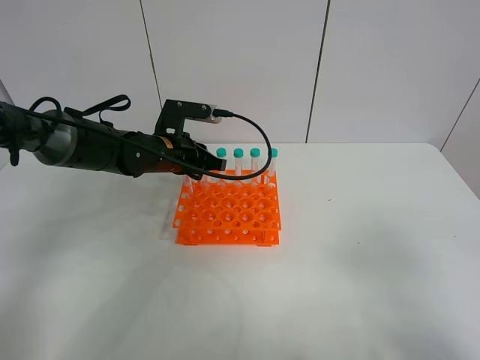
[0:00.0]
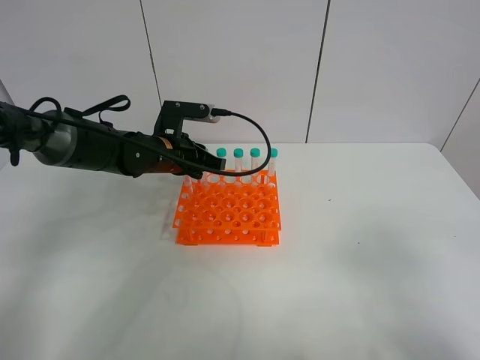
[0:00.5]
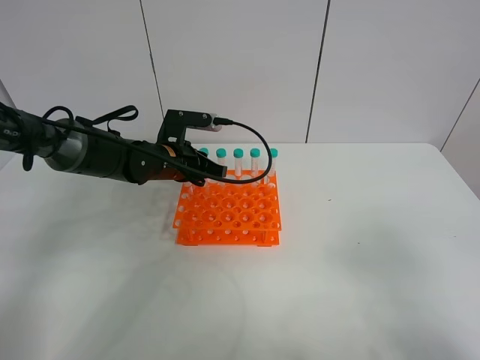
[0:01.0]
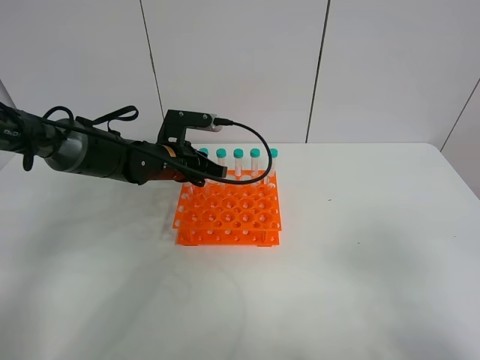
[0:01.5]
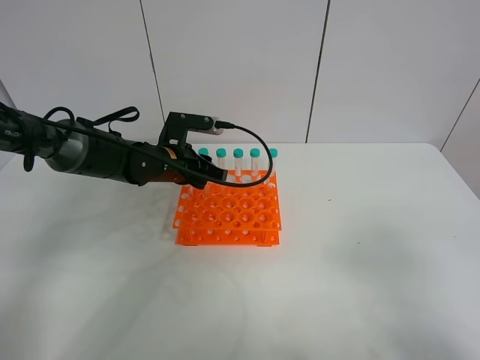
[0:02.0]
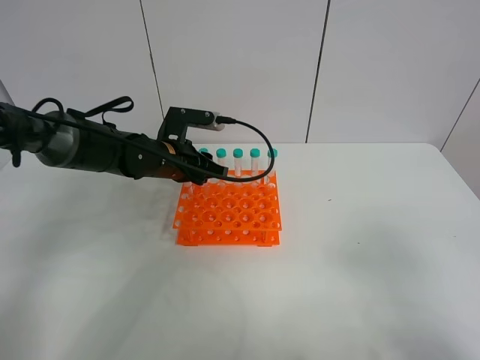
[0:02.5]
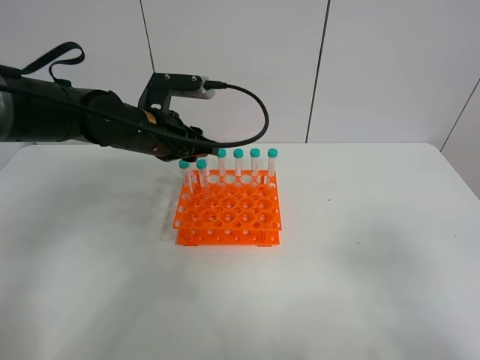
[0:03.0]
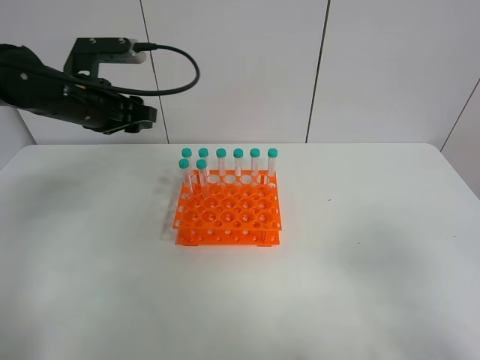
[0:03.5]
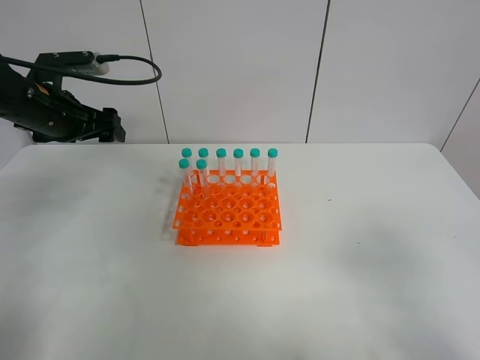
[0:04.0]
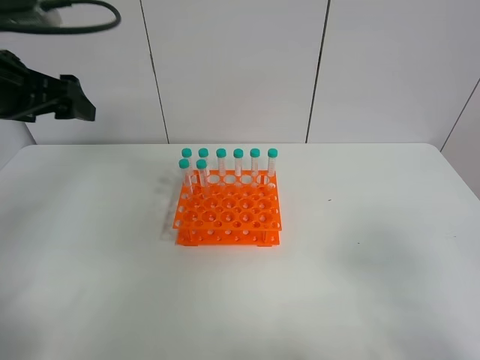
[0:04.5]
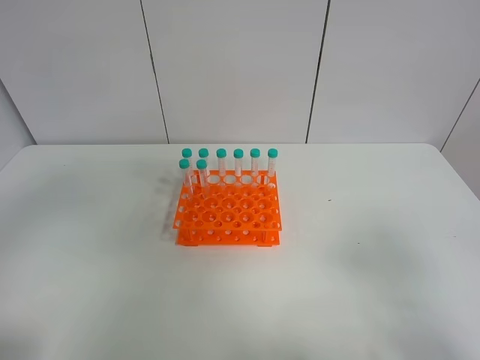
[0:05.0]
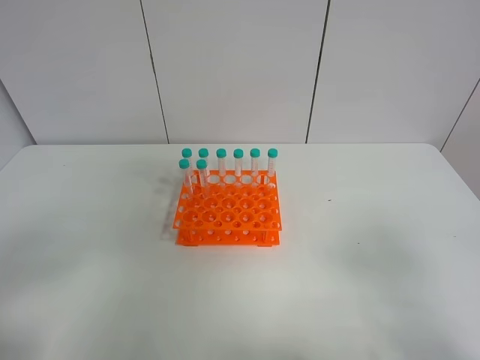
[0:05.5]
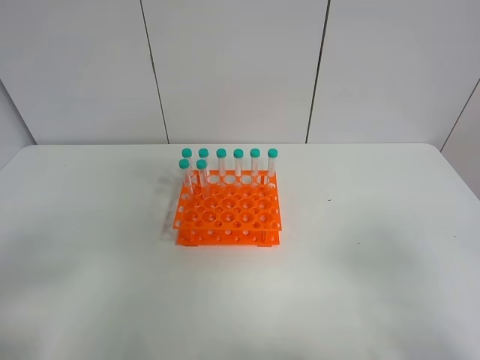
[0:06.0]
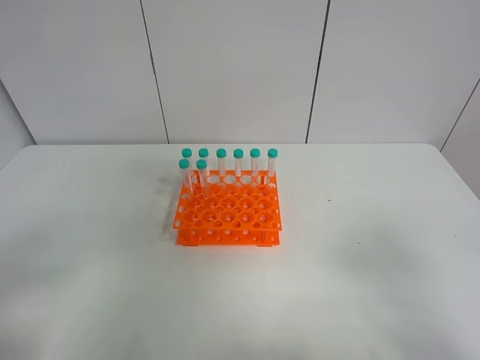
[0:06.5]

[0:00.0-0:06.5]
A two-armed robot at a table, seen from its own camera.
Task of the whole recording: Put the test tube on the table back onto the test tube rack.
Step, 0:00.0 to 0:02.0: Place the test tube on the test tube rack with the left gripper.
0:00.0 to 0:02.0: The grippers make only small movements.
0:02.0 to 0:04.5: The left gripper shifts roughly 25 cm upward, to the left and backward, and opens up.
0:04.5 to 0:06.5: The left gripper travels backward by roughly 30 cm.

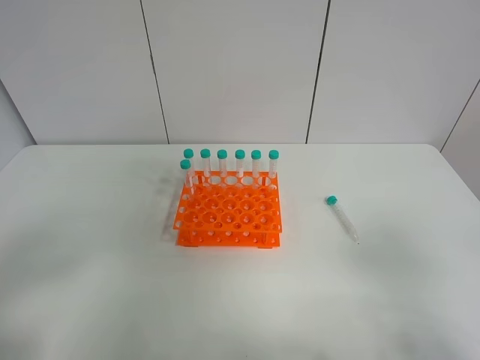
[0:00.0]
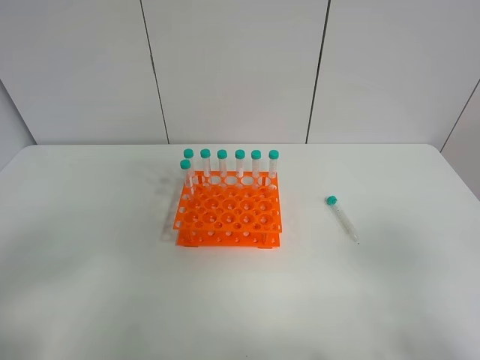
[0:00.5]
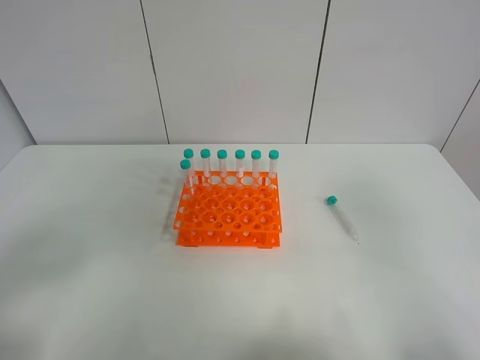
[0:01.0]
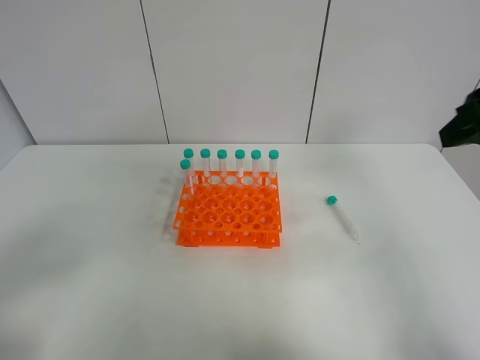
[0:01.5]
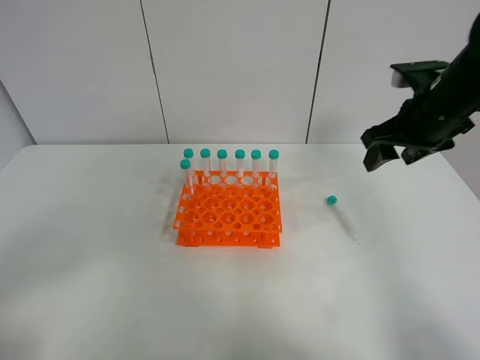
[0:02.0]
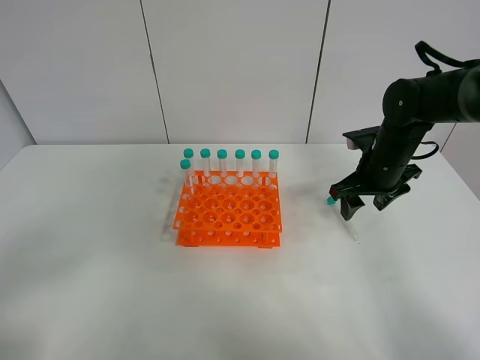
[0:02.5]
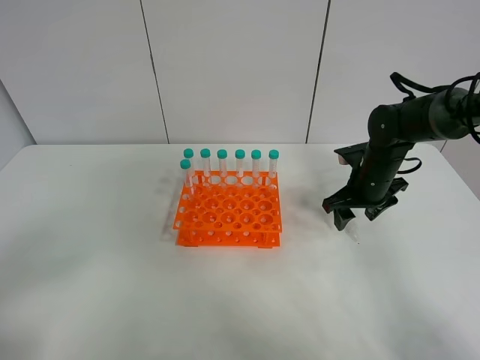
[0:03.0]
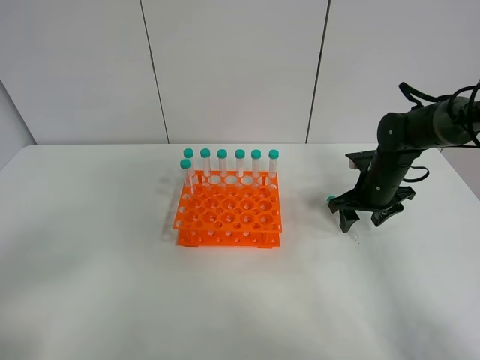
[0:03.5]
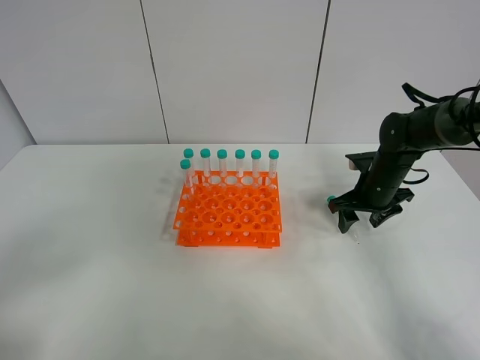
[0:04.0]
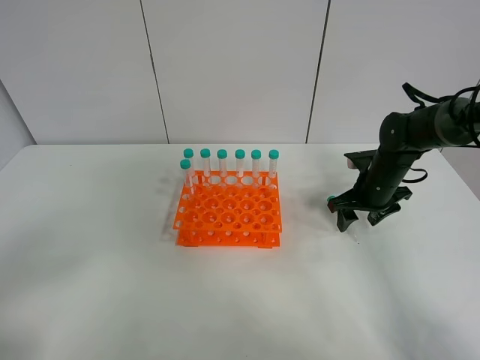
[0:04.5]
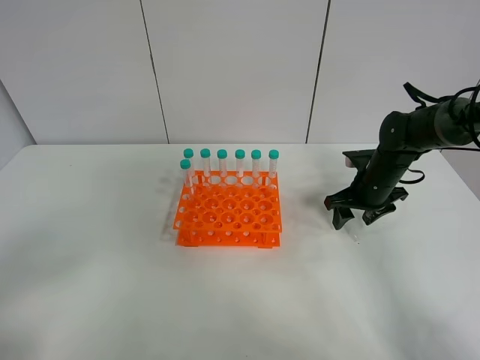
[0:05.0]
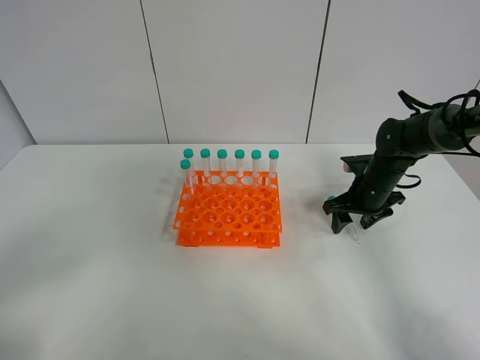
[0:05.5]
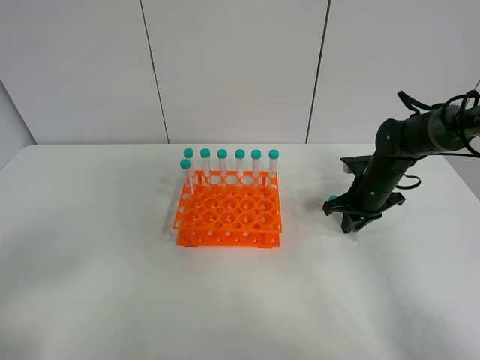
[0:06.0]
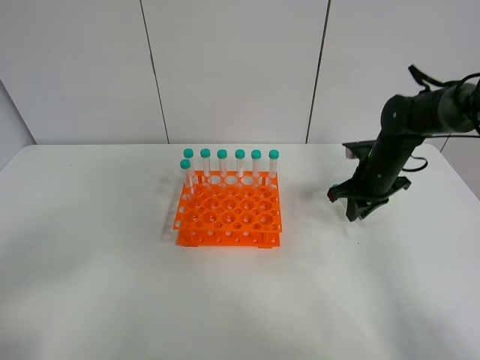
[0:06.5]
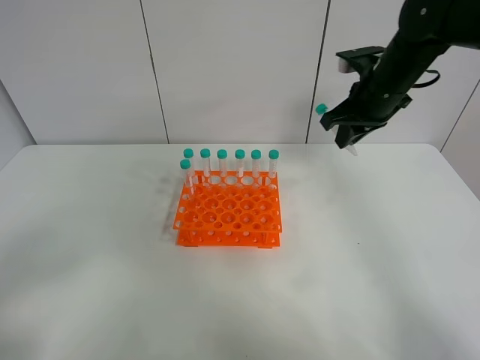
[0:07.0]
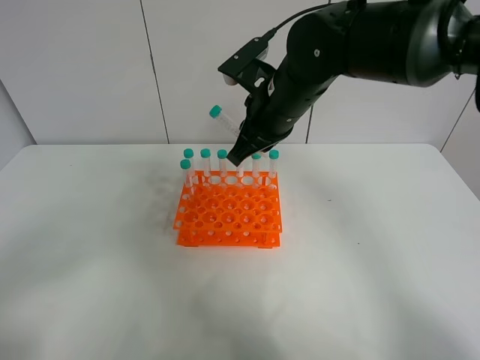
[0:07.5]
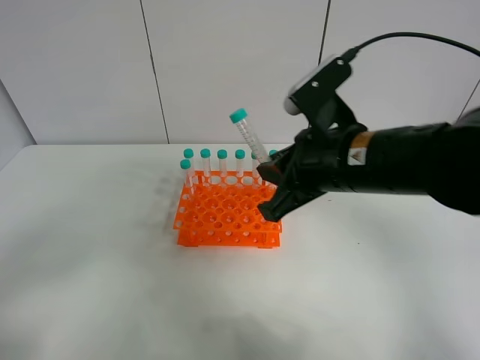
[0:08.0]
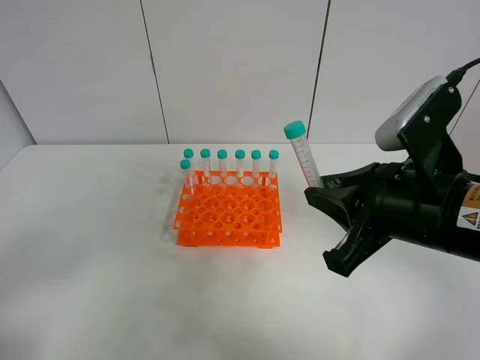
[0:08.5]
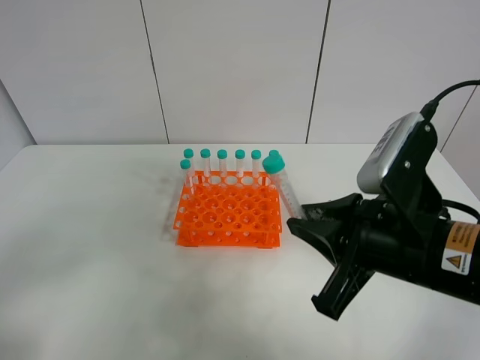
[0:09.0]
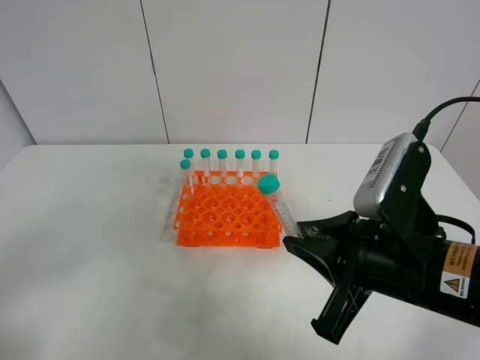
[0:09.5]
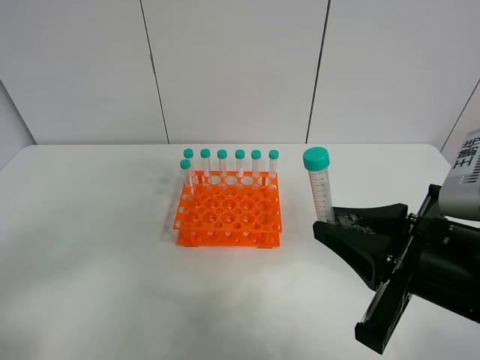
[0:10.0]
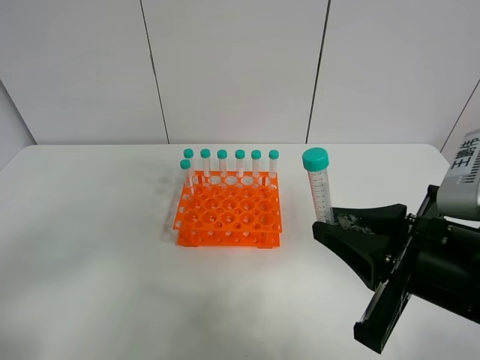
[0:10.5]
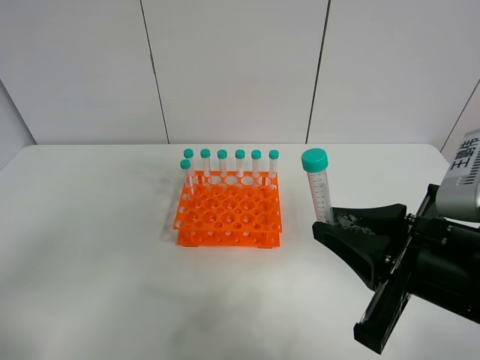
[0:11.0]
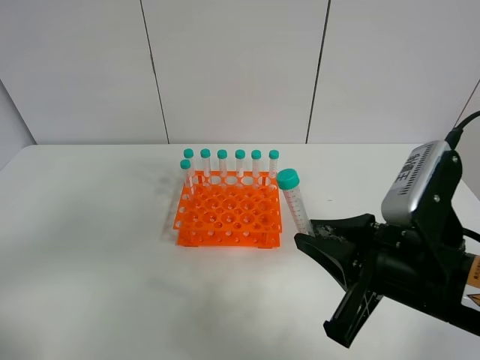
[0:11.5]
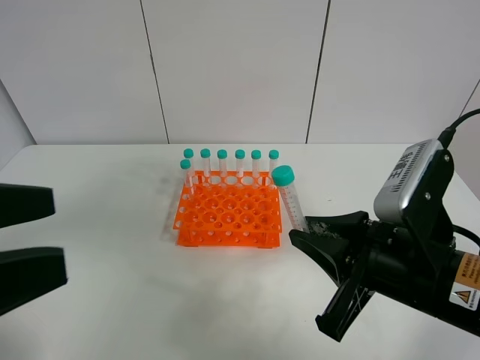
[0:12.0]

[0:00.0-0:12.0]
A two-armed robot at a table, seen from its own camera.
Task of the whole recording: Put the test tube on the table back onto the test tube rack.
Step, 0:00.0 to 0:06.5: Pick up the test tube with the right gripper.
0:00.0 to 0:02.0: The right gripper shifts about 35 cm forward.
0:02.0 to 0:04.0: The right gripper is displaced downward by some 15 cm.
0:04.0 to 0:06.0: The right gripper closes its fingers.
0:06.0 to 0:08.0: The right gripper moves upward, backward and to the left, approximately 30 cm.
0:08.0 to 0:10.0: The right gripper travels backward and to the right by roughly 10 cm.
0:10.0 to 0:12.0: The left gripper travels forward, to the right and upward by roughly 10 cm.

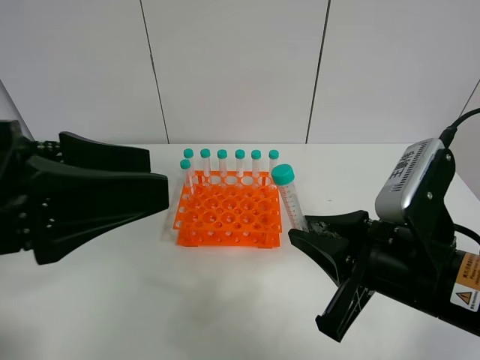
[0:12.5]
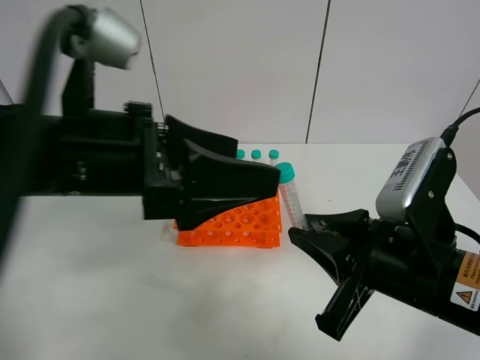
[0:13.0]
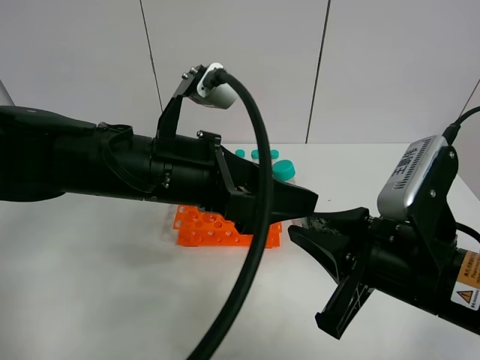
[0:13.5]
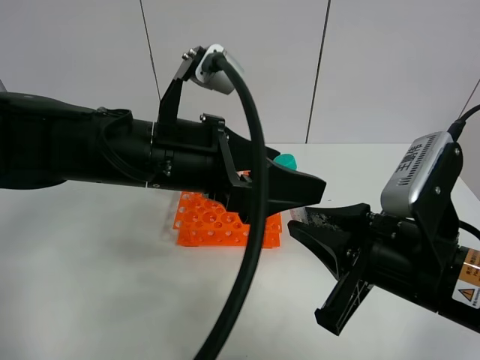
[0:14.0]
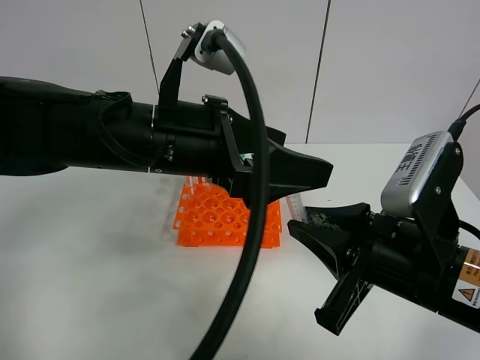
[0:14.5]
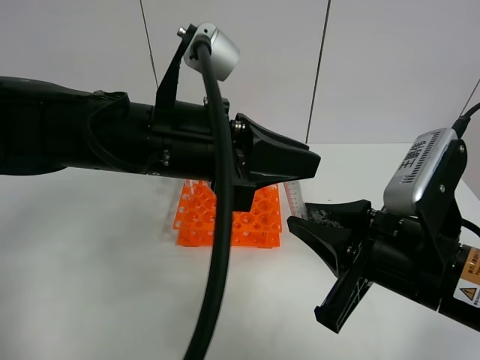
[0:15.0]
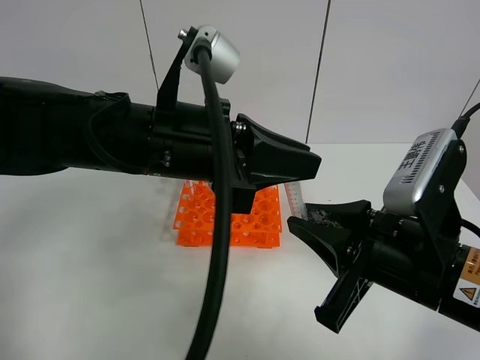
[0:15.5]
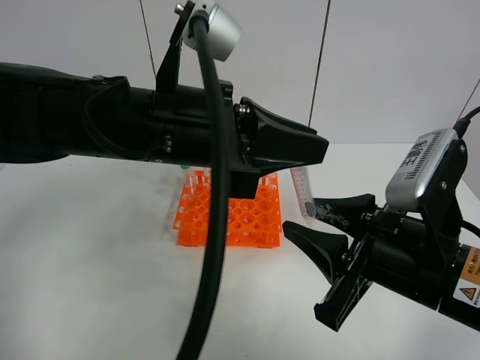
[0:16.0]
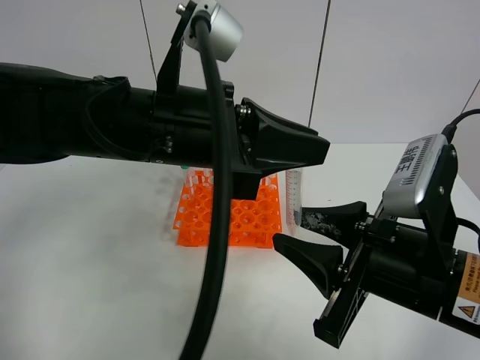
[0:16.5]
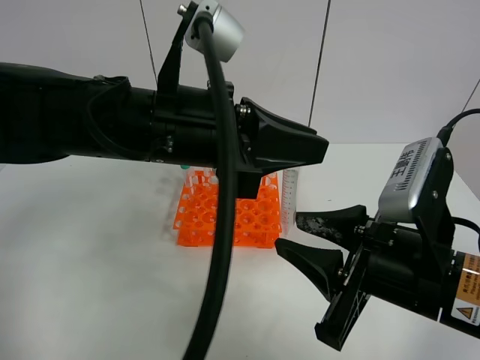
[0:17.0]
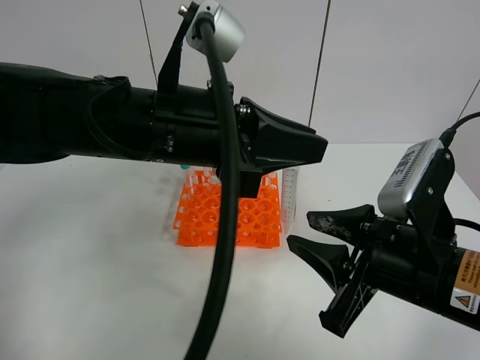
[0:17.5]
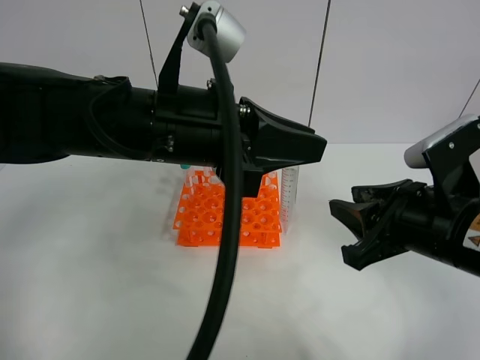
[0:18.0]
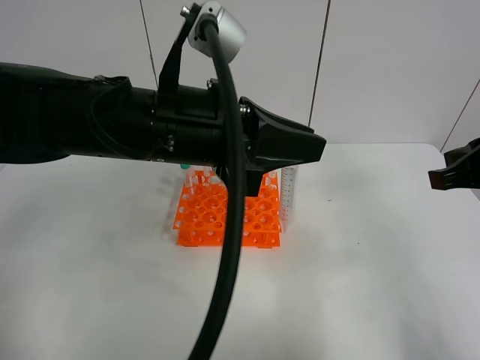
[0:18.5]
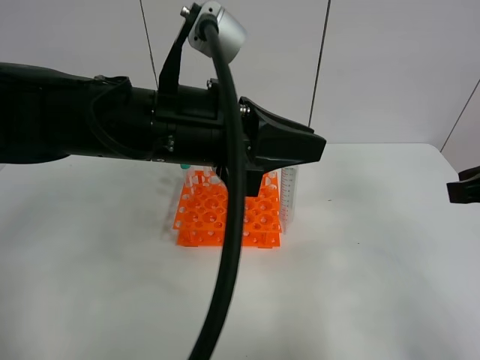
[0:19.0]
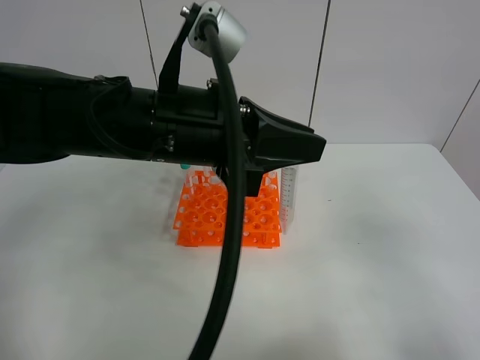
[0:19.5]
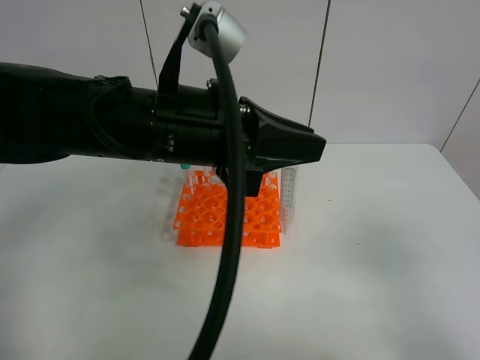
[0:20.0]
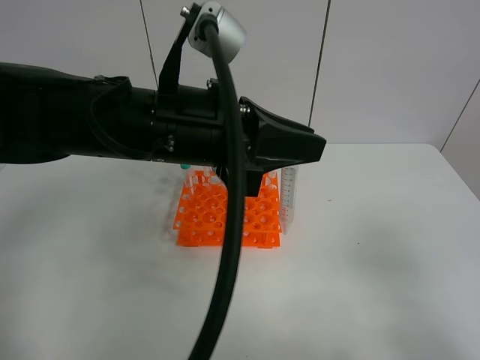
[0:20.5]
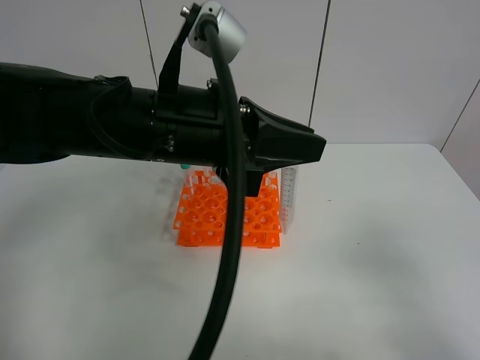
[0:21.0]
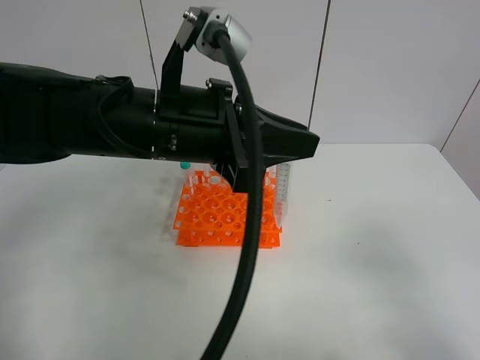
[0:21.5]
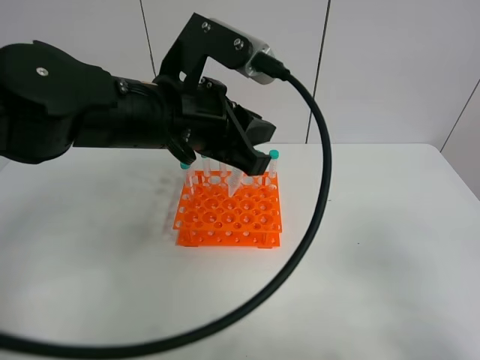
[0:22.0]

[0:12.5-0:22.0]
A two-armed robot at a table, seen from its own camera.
Task of the whole recording: Put the test tube on the table back onto the test tube rack.
Step, 0:12.5 to 0:18.0: Move the test tube from the right gripper to the left gripper.
0:12.5 to 0:14.5: The left gripper is displaced to the right and forward by about 15 cm.
0:14.5 to 0:16.5: The left gripper closes.
0:16.5 to 0:18.0: The right gripper shifts by about 5 cm.
0:18.0 to 0:20.0: The right gripper shifts about 20 cm backward and to the right, and closes.
